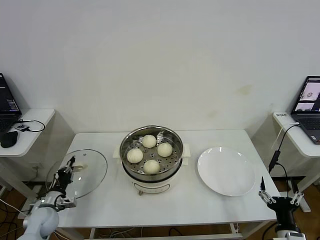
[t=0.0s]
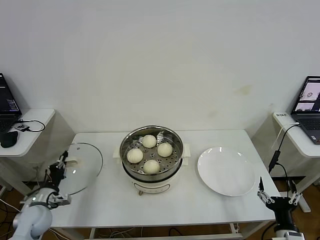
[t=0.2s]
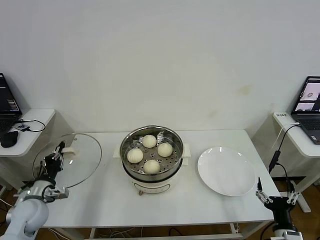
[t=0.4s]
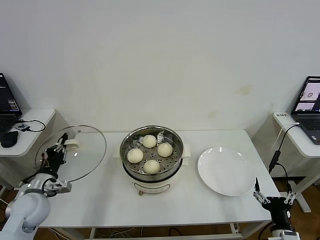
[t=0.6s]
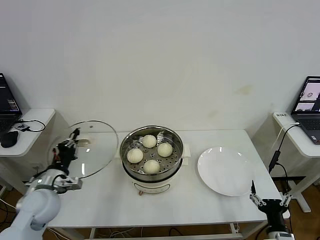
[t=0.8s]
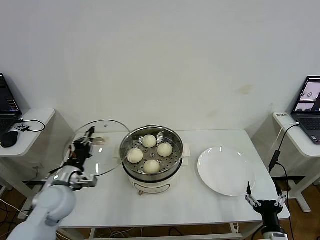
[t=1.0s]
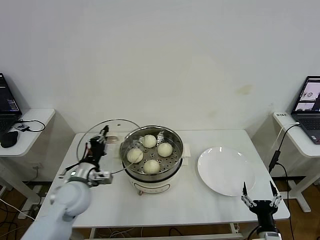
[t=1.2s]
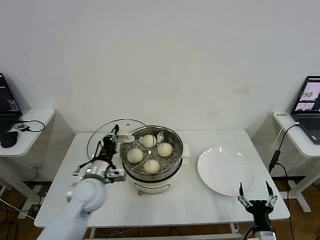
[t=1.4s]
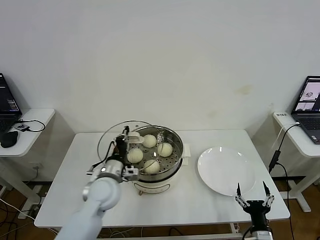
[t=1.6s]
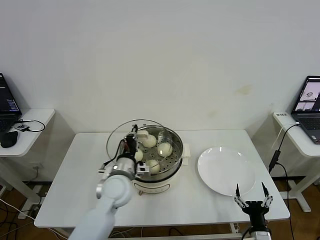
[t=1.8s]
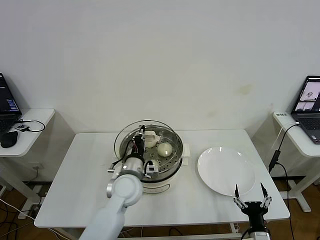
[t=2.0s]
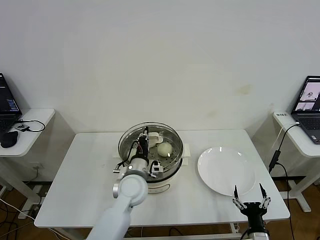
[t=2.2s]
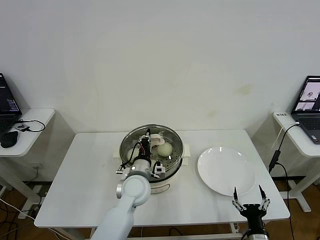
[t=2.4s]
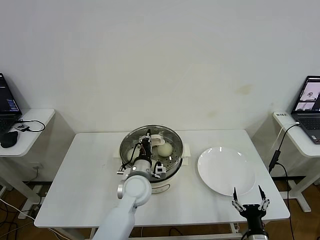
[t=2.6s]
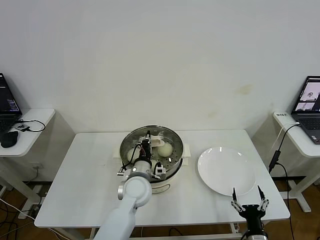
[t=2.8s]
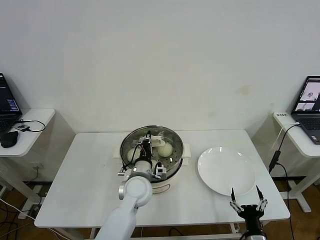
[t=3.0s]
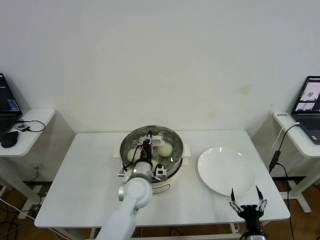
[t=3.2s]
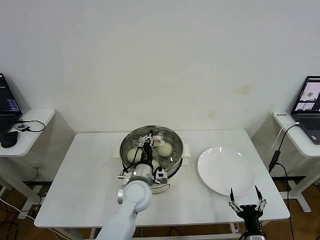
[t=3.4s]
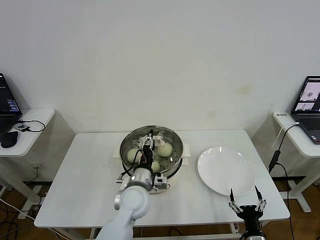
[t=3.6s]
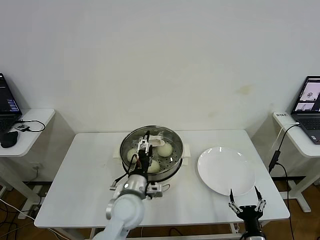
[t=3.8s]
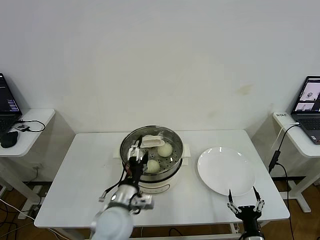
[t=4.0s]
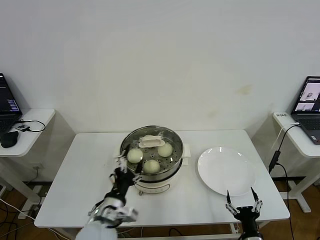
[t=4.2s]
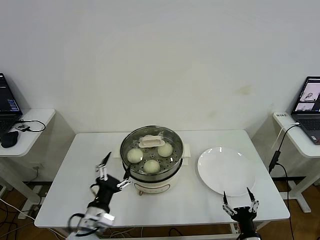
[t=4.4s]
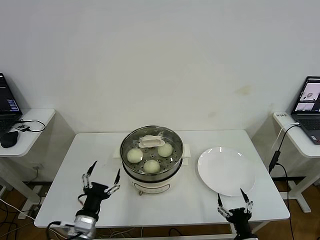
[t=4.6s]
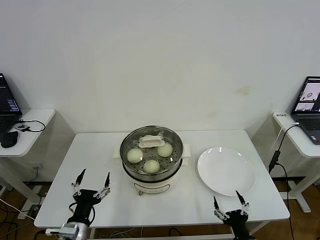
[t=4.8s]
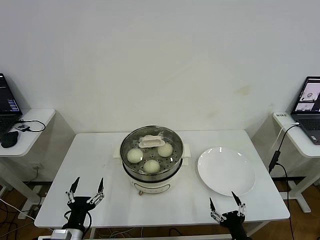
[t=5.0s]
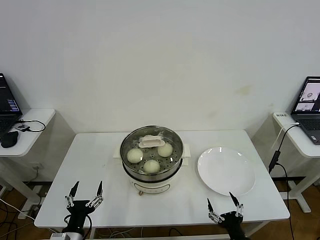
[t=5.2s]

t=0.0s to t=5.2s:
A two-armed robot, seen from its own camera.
Step, t=0.4s to t=3.2s: Place the pot lid on the steamer with left gripper.
t=0.0s to t=1.8s: The left gripper shifts approximately 30 cm to the right and upward. The right gripper shifts roughly 5 cm downward.
t=1.8s to t=3.4s: The left gripper goes roughly 5 cm to the right.
t=3.4s to t=5.2s: The left gripper moves to the left and backward, approximately 30 cm, and opens up.
